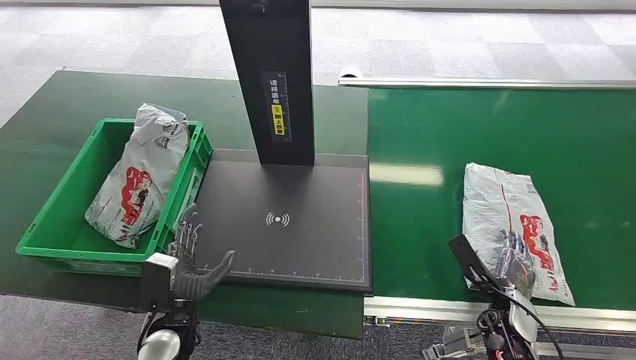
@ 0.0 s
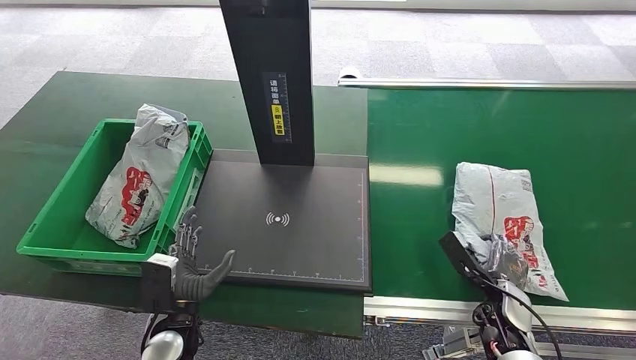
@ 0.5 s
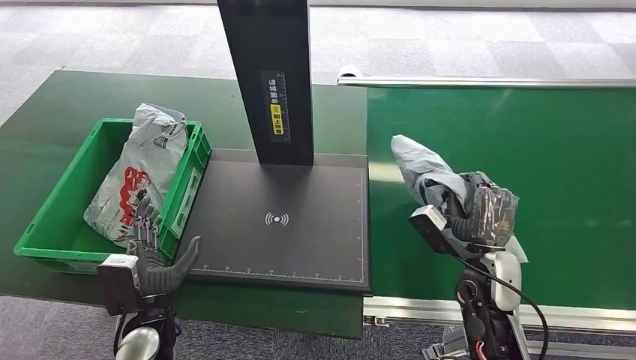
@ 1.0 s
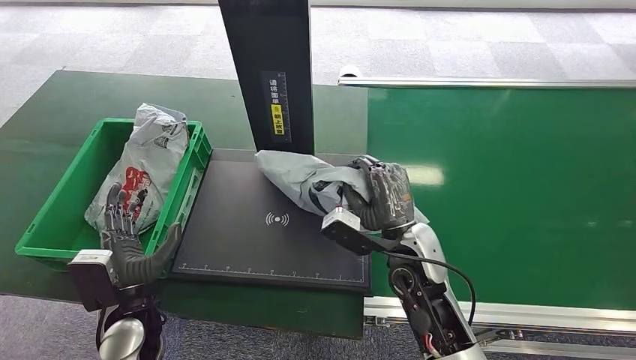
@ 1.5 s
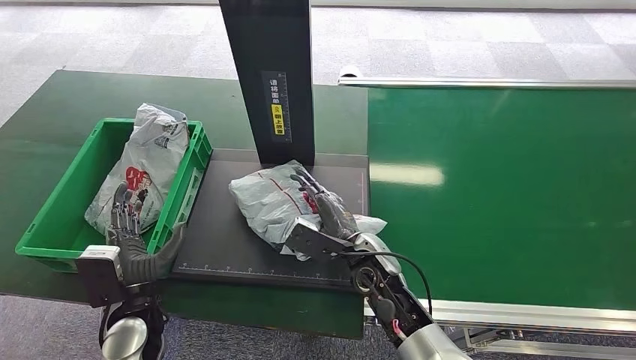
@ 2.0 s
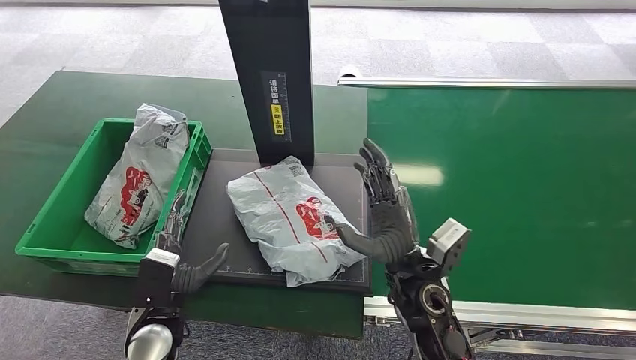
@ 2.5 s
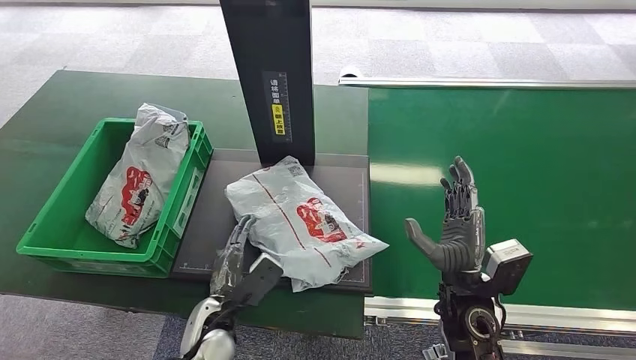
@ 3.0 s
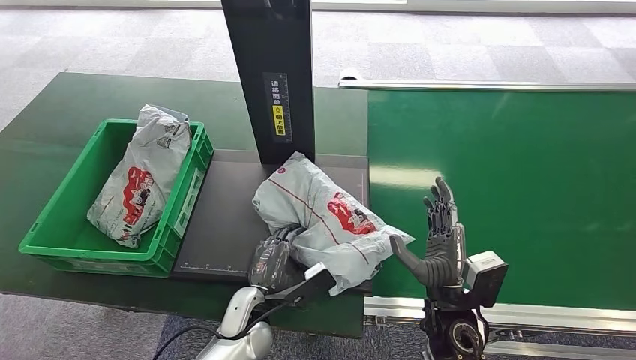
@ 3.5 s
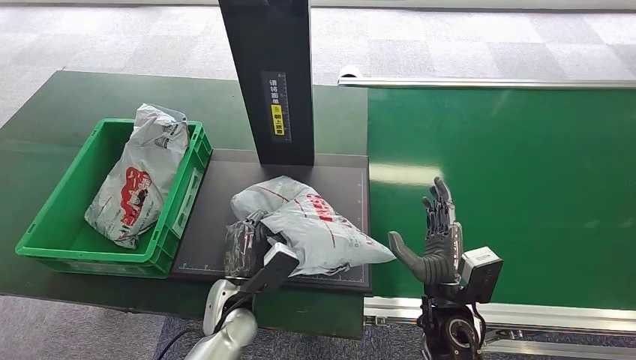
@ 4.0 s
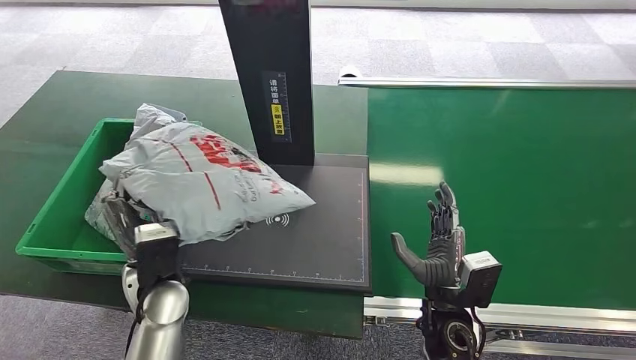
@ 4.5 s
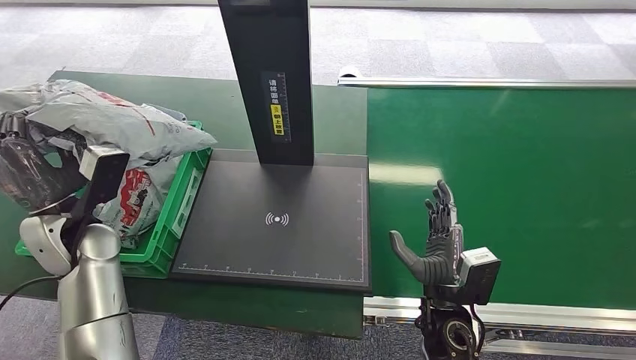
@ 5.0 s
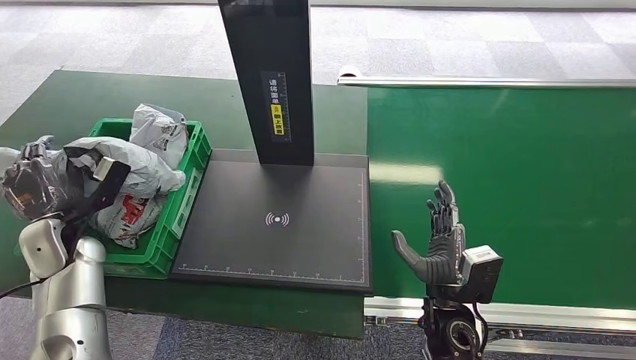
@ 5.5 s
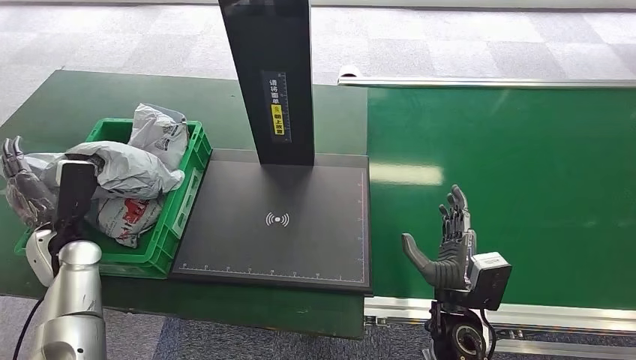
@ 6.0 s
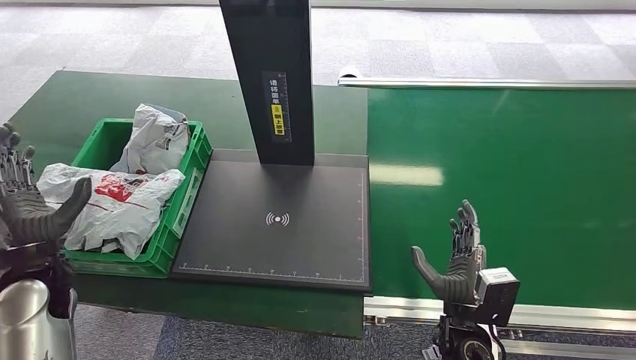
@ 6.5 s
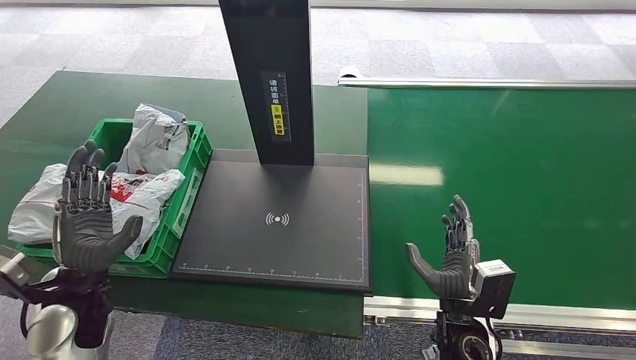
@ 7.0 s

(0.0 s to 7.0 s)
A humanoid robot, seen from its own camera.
Step, 0.0 s - 1.0 s: Pick up the package from the conveyor belt.
Step, 1.5 s - 3.0 s: Place the package onto the inbound machine.
Step, 3.5 s - 5.0 s: Pick up the package from the inbound machine.
Step, 5.5 s - 7.0 s: Place the package into the parcel locker.
5.0 s - 7.0 s: The left hand shifts some 10 cm backward and downward.
